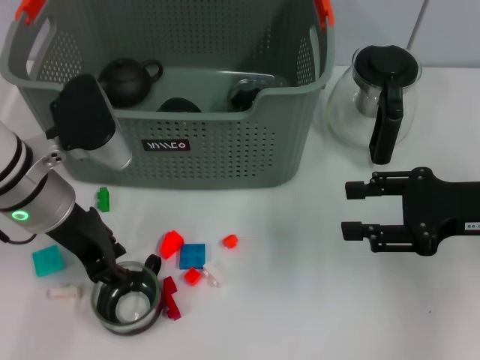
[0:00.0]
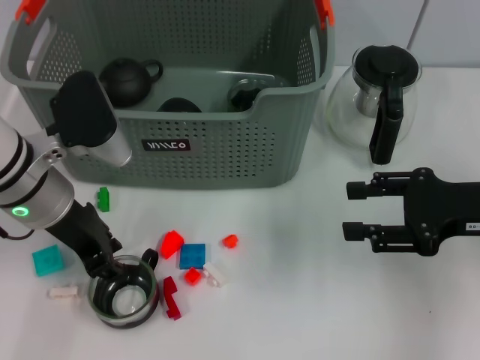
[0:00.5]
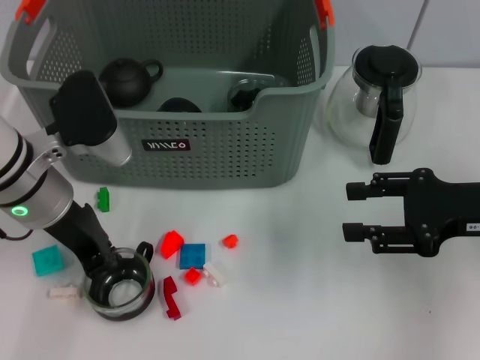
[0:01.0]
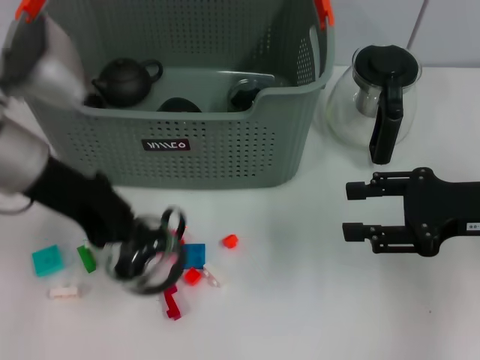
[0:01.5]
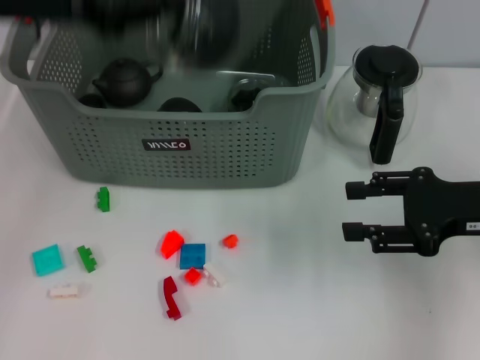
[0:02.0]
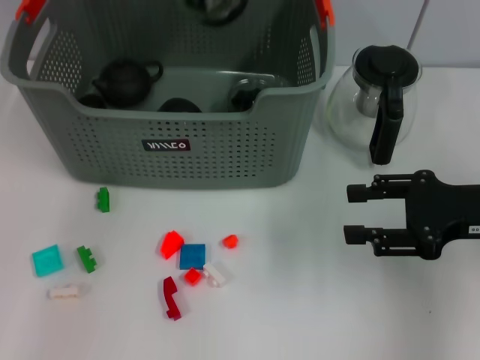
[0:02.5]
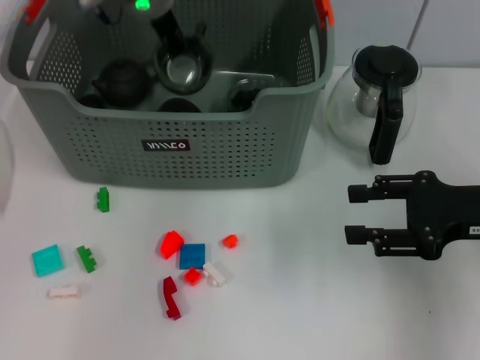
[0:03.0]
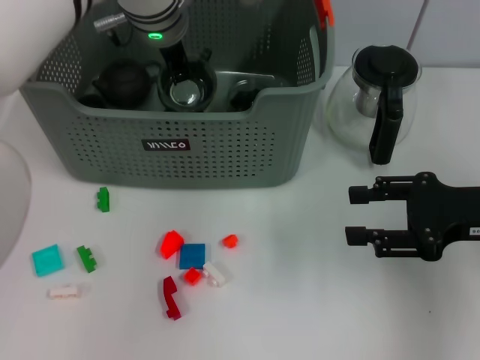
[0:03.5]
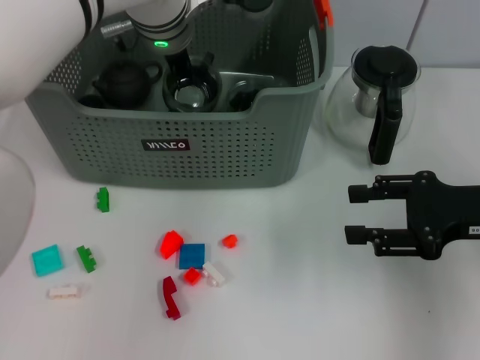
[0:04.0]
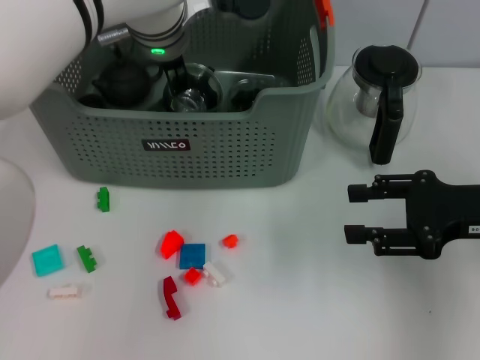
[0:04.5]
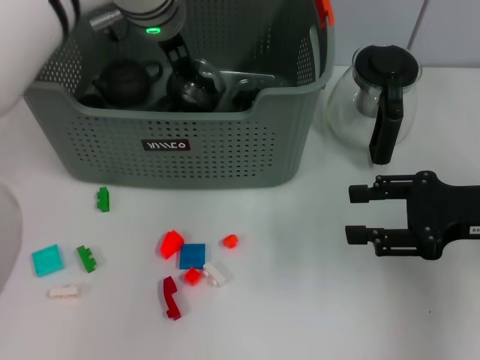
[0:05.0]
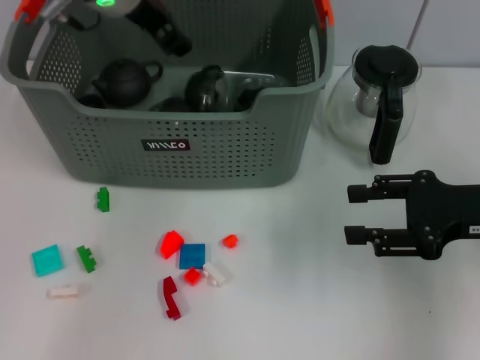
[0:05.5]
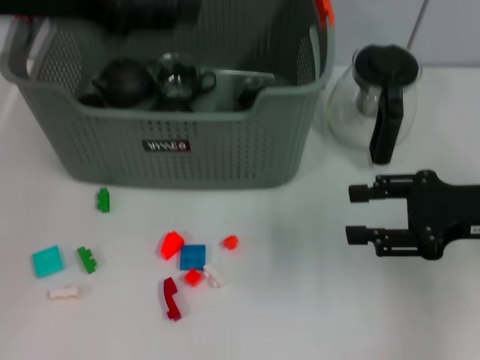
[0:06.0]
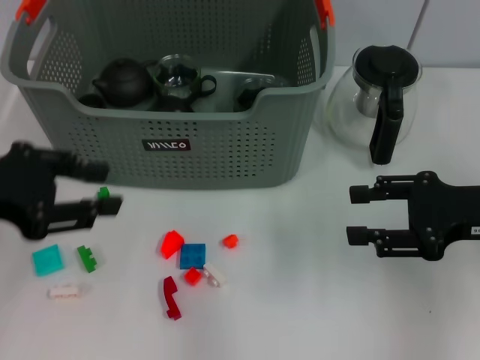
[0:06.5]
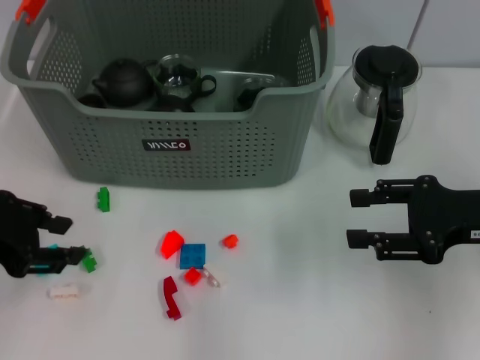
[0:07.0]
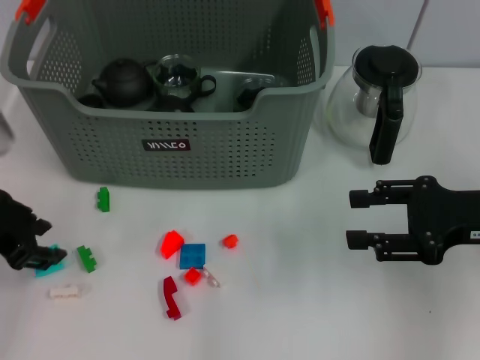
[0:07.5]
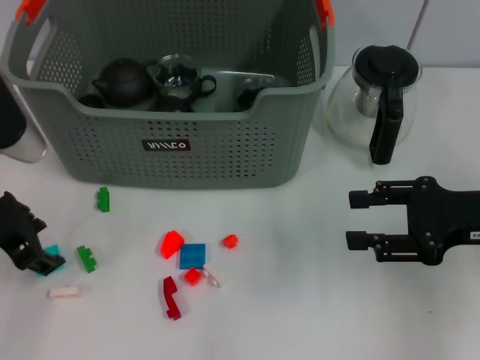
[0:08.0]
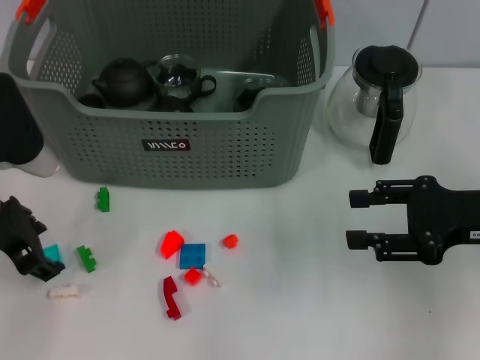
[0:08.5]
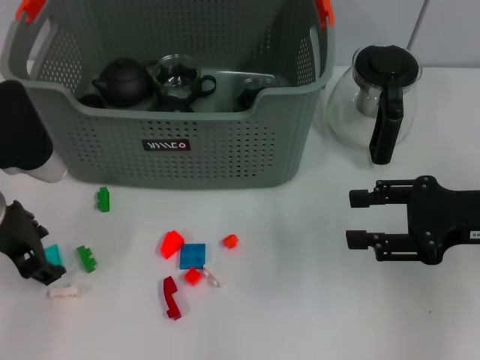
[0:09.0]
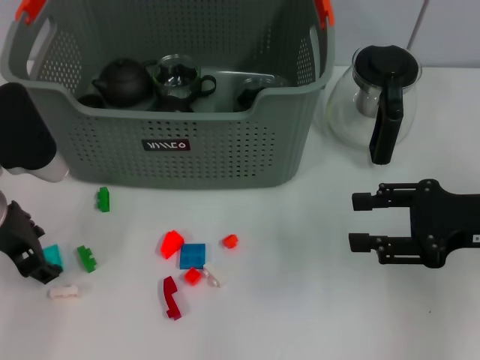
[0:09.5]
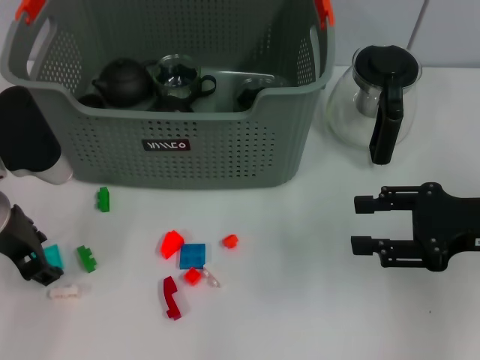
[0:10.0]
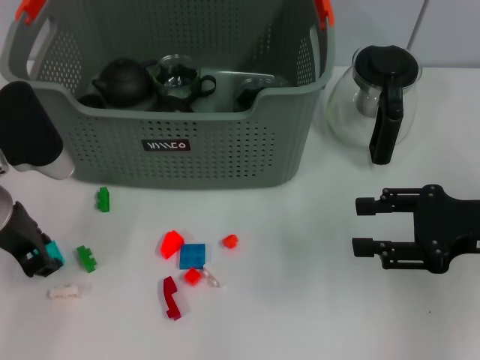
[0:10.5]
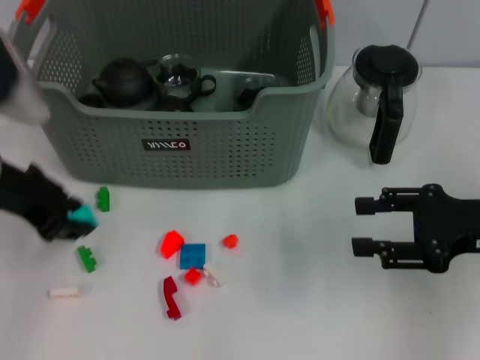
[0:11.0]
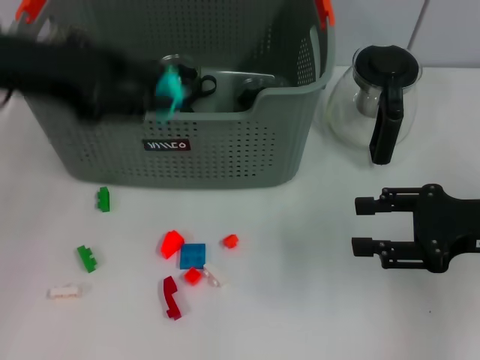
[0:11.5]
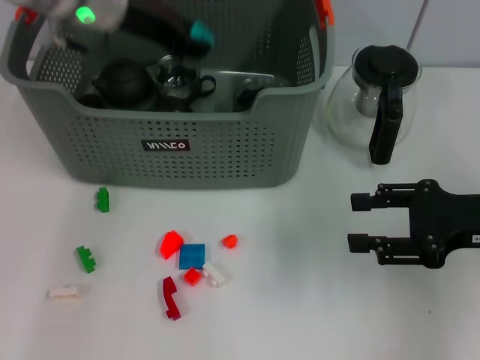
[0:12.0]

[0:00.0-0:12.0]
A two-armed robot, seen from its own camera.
Task of the whole recording: pick up the teacup on the table and place it into the storage bin, pick up the block on the table and place it into the storage bin.
Step, 0:01.5 to 0:05.5: Place the cup in the storage box with left gripper.
Step, 0:06.0 to 0:10.5: Grasp the light blue block with left gripper.
0:00.0 to 0:02.0: The left gripper travels upward by about 15 cm, and closes up.
0:02.0 to 0:04.0: The left gripper shifts about 20 cm to the right, forward and downward.
0:04.0 to 0:06.0: The left gripper moves to the left, backward and upward, about 20 cm, and opens.
0:06.0 to 0:08.0: The left gripper moves downward, some 15 cm.
0:08.0 to 0:10.0: There are only small adjustments of the grippers.
0:10.0 to 0:12.0: The left gripper heads forward, upward and to the right, covering some 20 cm.

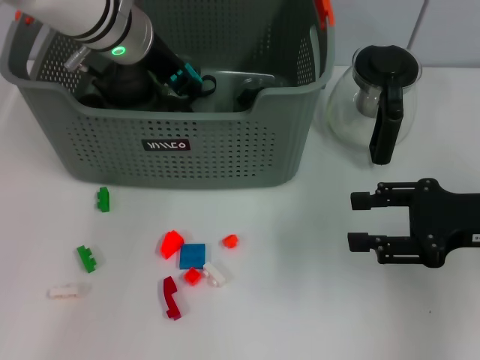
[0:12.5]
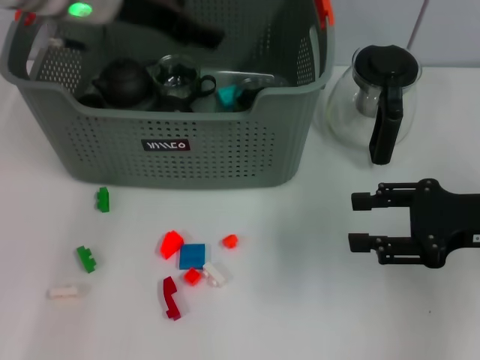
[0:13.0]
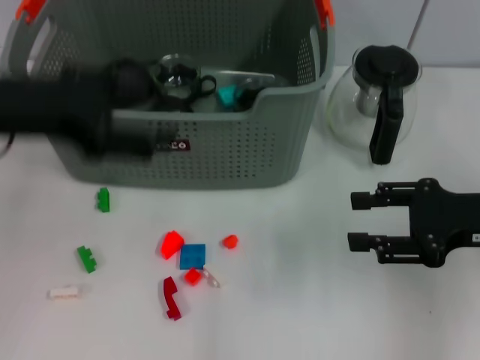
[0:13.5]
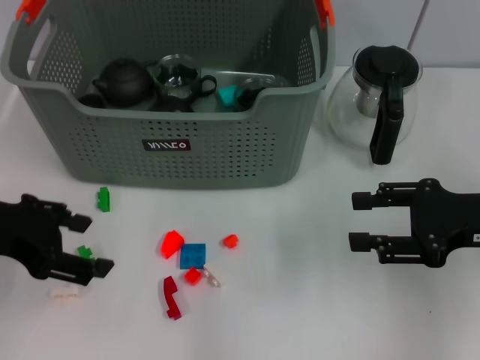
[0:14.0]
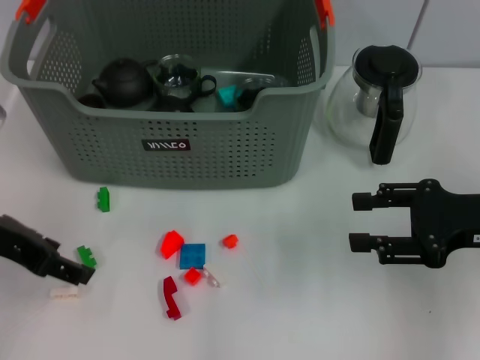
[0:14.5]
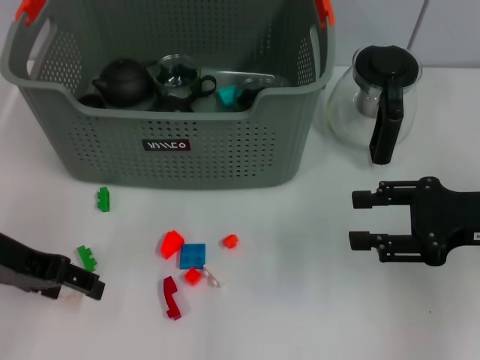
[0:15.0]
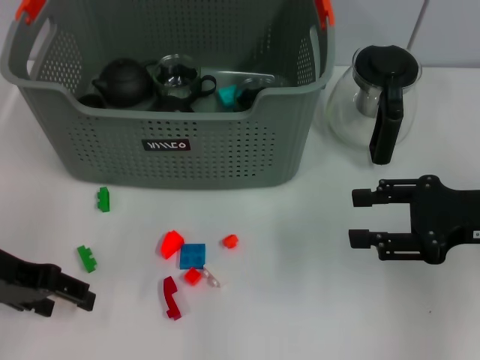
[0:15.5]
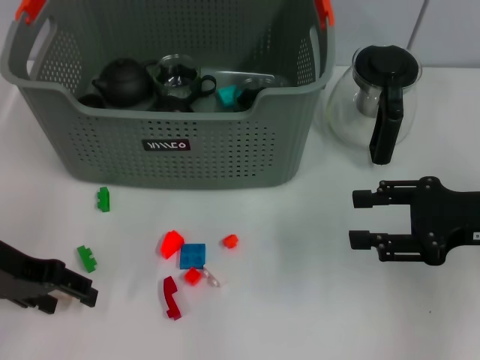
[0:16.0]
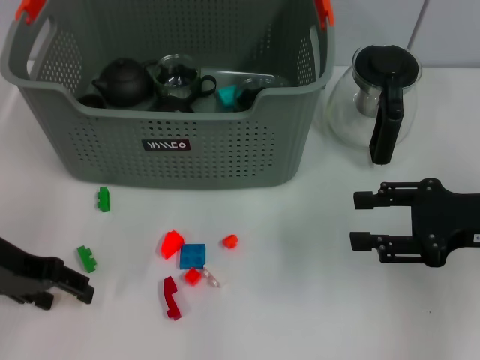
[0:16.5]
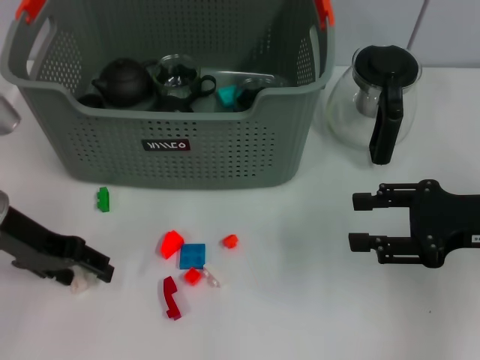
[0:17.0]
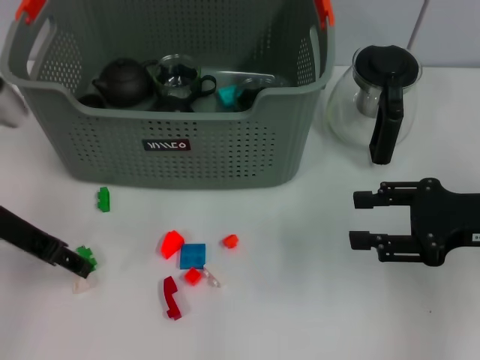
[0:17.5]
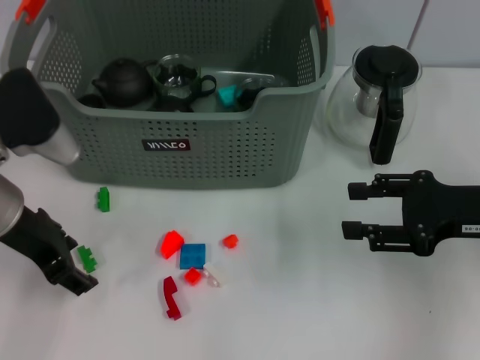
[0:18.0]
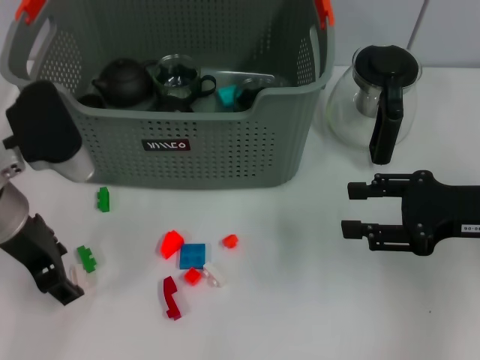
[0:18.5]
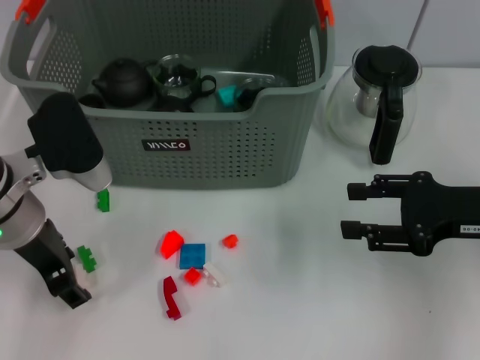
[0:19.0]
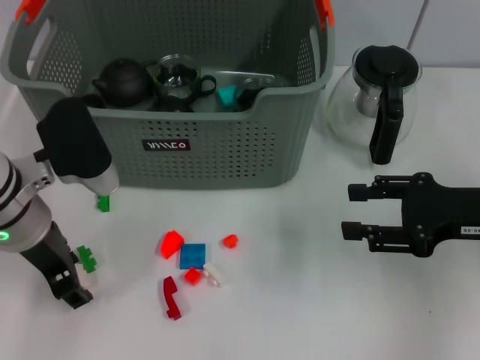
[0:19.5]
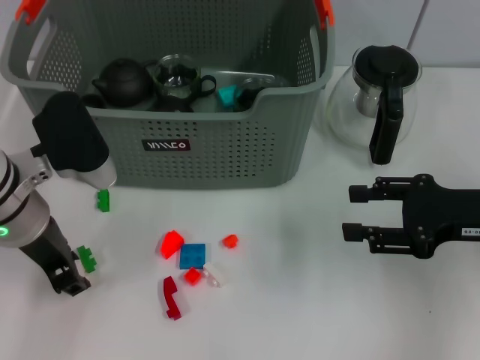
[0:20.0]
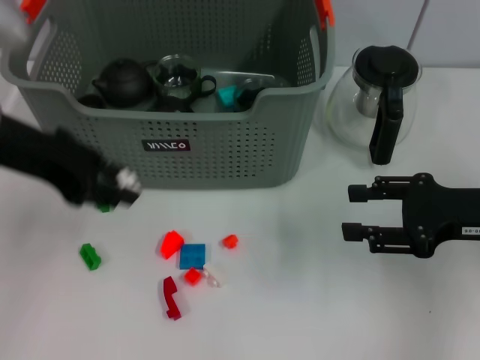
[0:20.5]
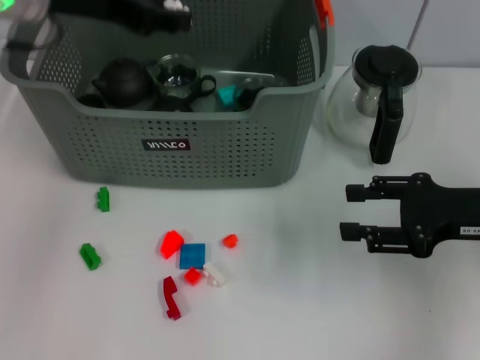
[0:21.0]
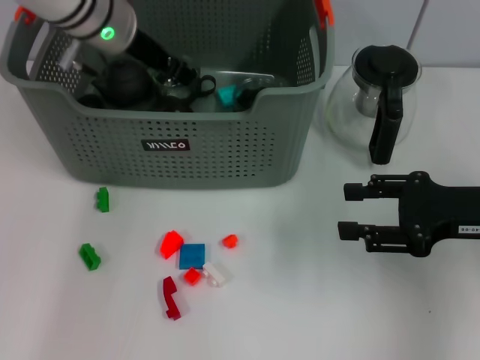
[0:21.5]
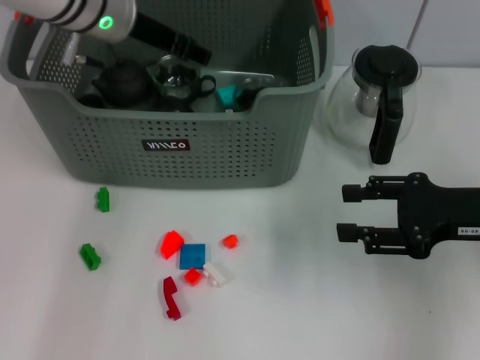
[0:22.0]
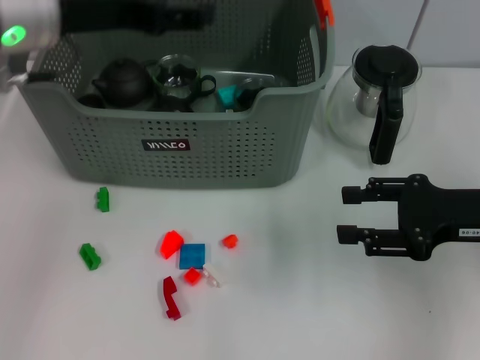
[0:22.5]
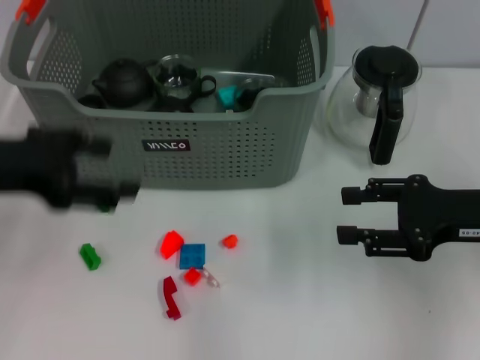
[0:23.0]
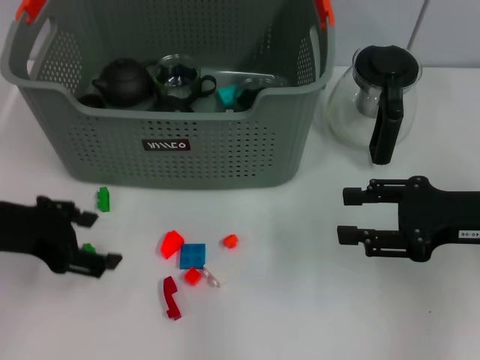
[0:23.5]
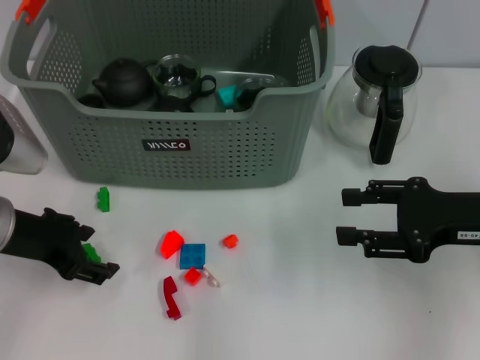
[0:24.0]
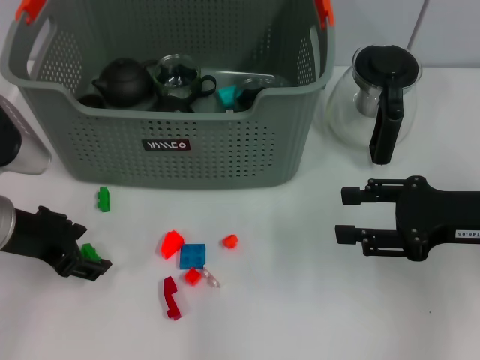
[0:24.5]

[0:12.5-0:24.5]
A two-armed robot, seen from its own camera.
Task of the whole recording: pick up the teacup on the table and place it into the storage bin, pick up the block on the table and place it into the storage bin.
Step, 0:13.5 to 0:20.0: Grasp the white block with left gripper.
Step, 0:20.5 to 0:22.0: Place the white block in the storage box with left gripper.
0:12.5 to 0:14.5: The left gripper is displaced backward and to the left by approximately 20 cm, and opens up.
0:14.5 to 0:16.5: The left gripper travels downward by roughly 5 cm.
0:16.5 to 0:18.5: The left gripper is displaced to the right by some 5 cm.
0:18.5 to 0:20.5: The left gripper shifts approximately 10 cm upward, and closes.
0:20.5 to 0:22.5: The left gripper moves roughly 15 cm forward and comes back, and opens its fingers.
0:22.5 to 0:24.5: The left gripper goes about 15 cm downward and backward.

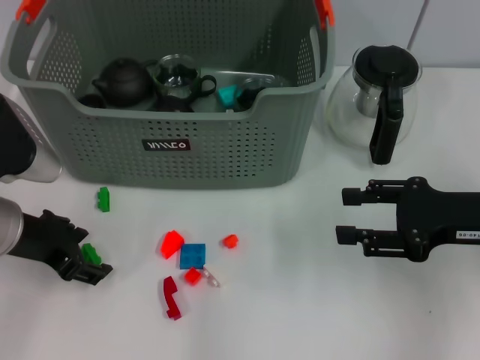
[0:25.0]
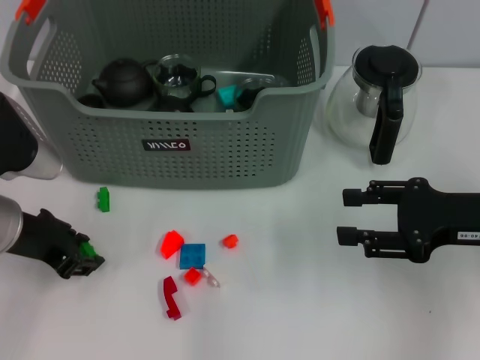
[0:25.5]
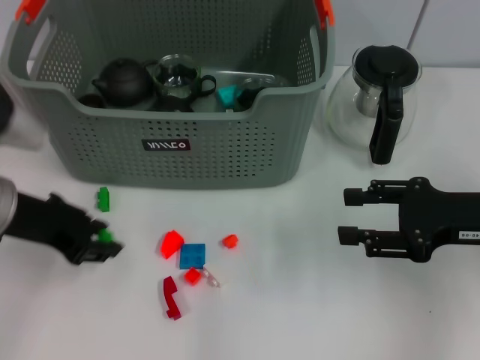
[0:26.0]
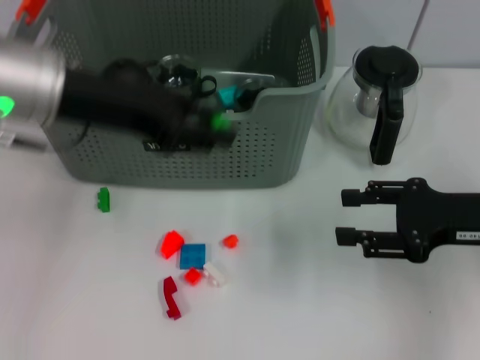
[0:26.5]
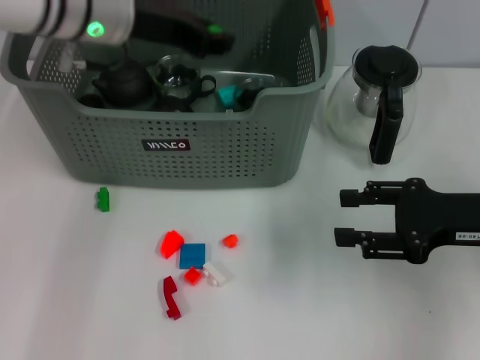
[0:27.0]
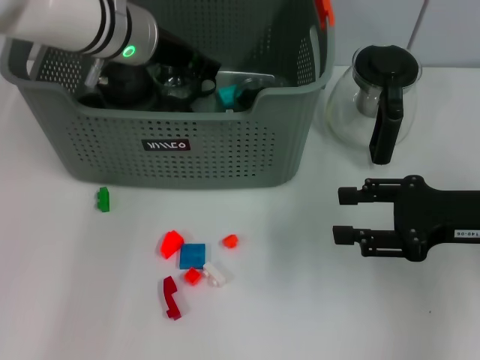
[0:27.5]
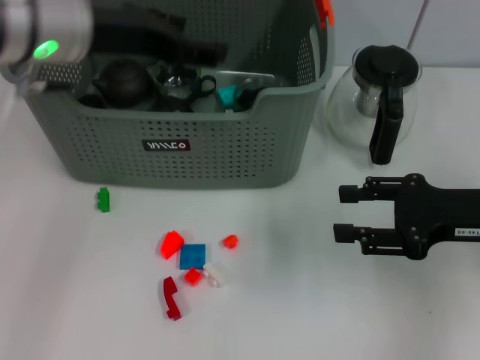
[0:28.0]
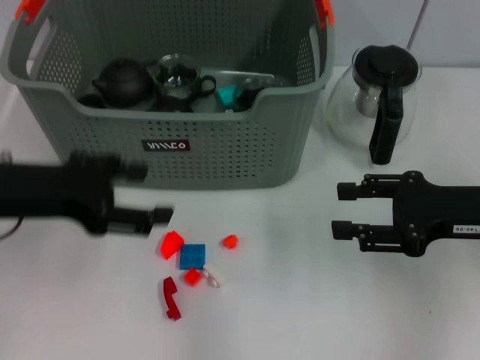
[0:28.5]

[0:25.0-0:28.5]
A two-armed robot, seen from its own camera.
Task of the whole recording: pick up the teacup on the table and place it into the storage bin, pick up the block on the table and place it into the storage bin.
Step, 0:26.5 to 0:28.0: Place the green block in the storage box with left gripper.
0:25.0 to 0:27.0: The left gripper shifts some 20 cm forward, upward and to the right, and closes its fingers.
0:27.0 to 0:28.5: The left gripper heads backward and to the left, covering approximately 15 cm, and opens its fingers.
